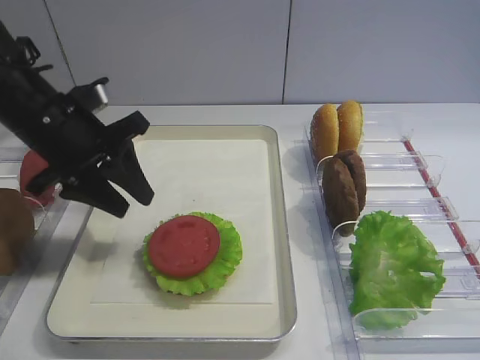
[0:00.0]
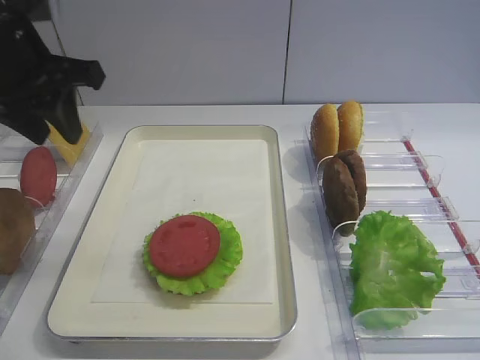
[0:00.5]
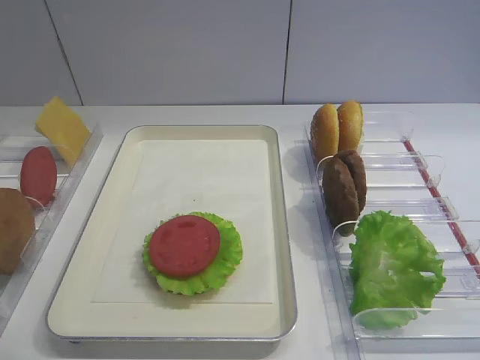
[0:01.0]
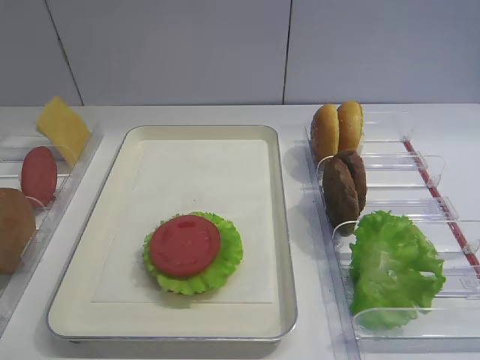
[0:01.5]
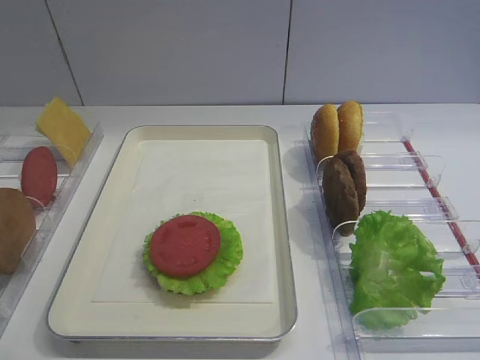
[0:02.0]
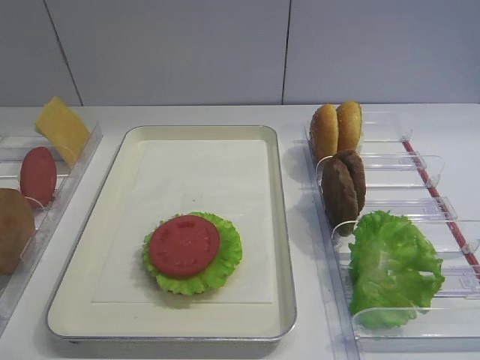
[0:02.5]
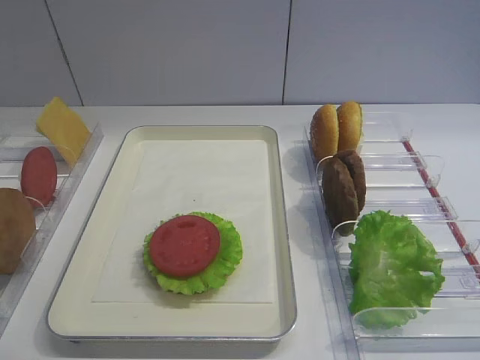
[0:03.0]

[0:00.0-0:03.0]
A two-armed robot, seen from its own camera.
0:00.0 to 0:01.5: The left gripper heads backward and upward, covering some 30 cm.

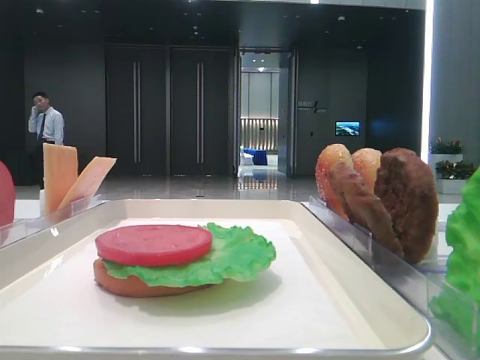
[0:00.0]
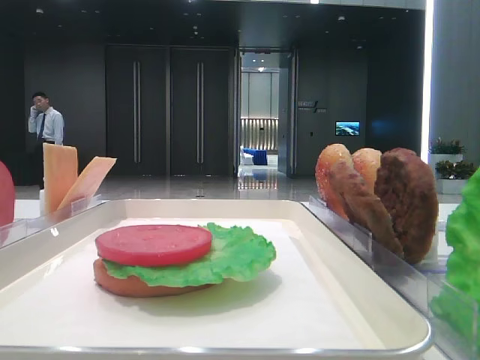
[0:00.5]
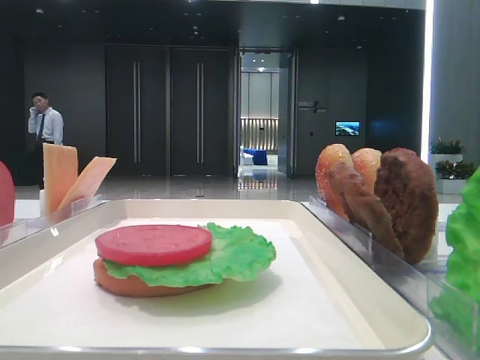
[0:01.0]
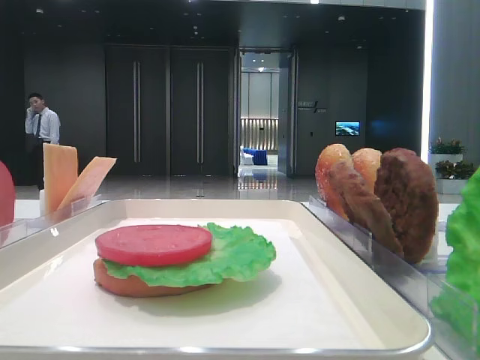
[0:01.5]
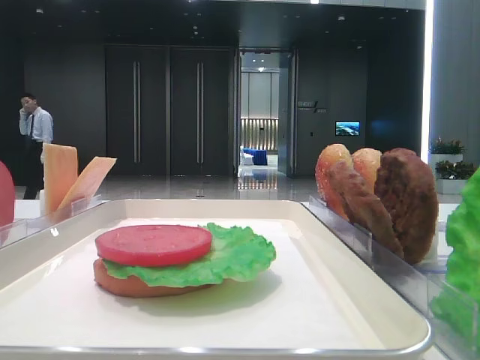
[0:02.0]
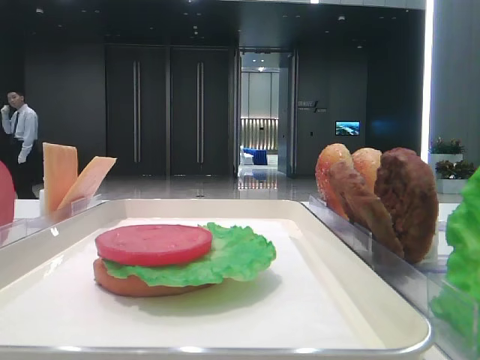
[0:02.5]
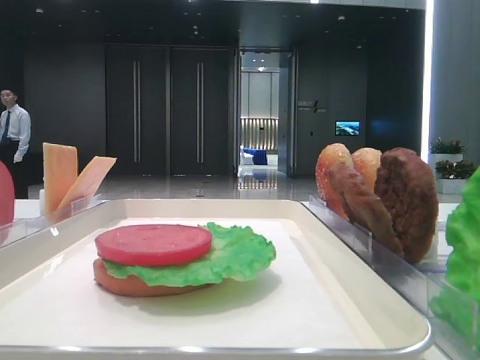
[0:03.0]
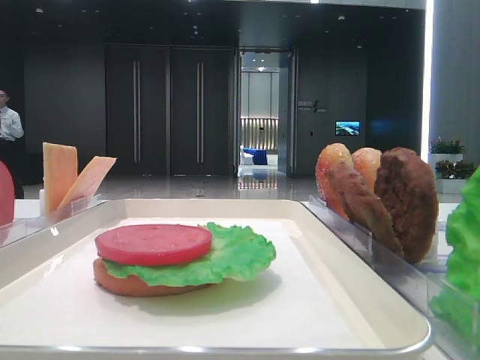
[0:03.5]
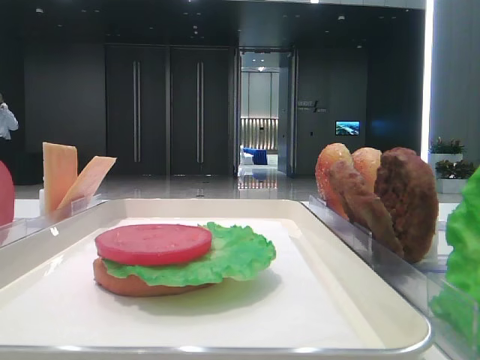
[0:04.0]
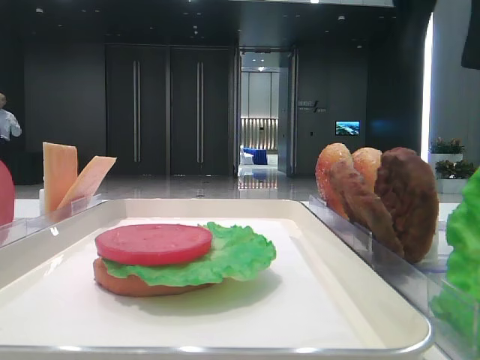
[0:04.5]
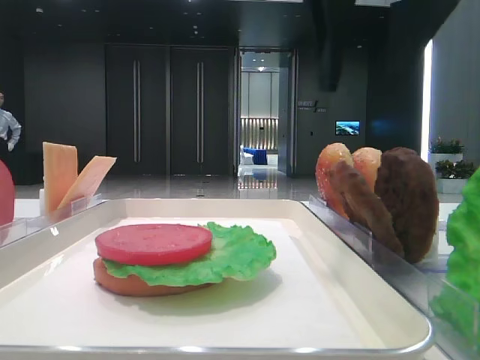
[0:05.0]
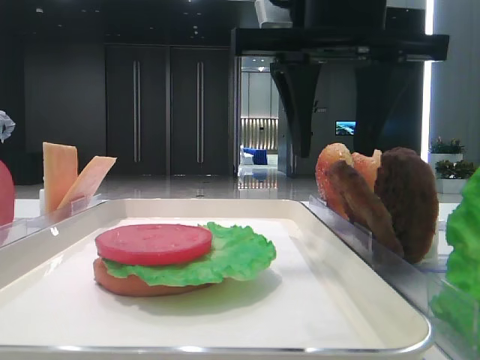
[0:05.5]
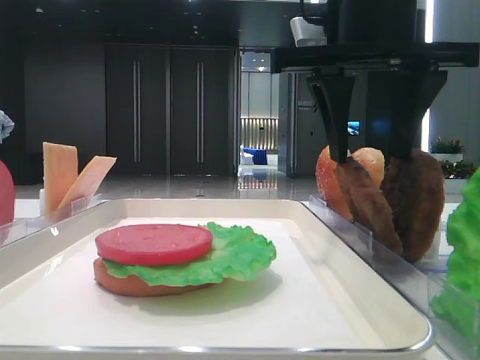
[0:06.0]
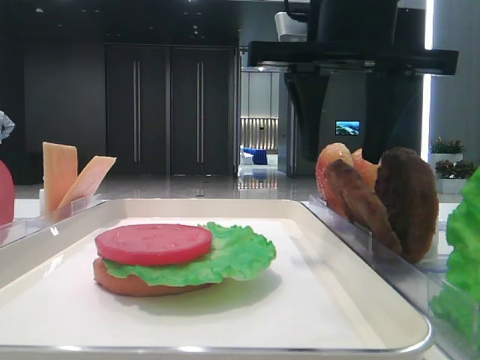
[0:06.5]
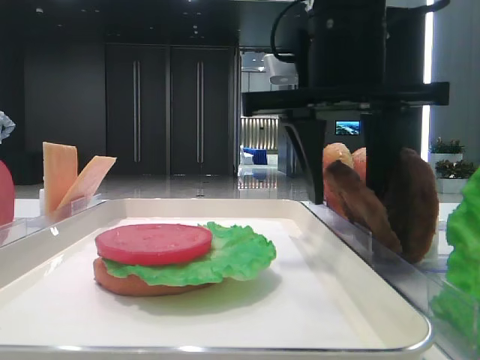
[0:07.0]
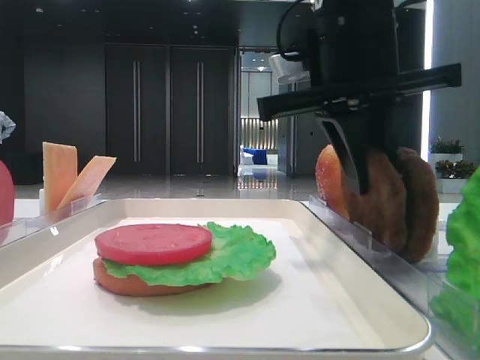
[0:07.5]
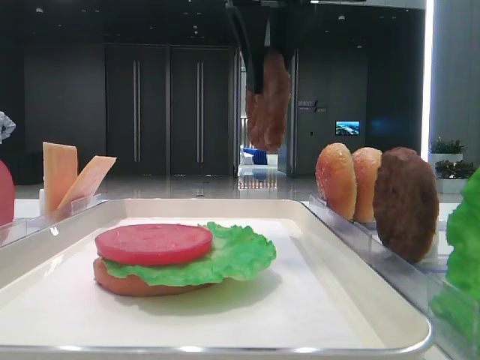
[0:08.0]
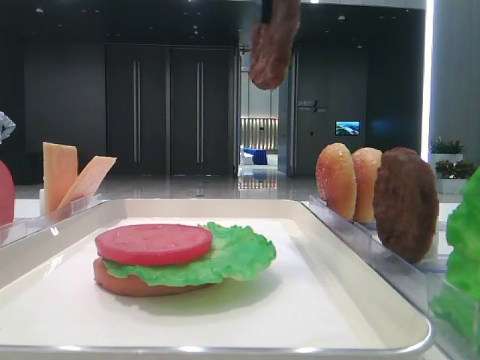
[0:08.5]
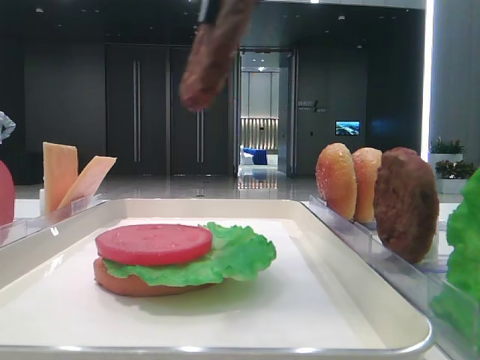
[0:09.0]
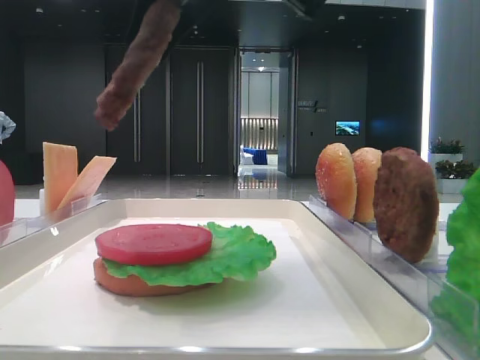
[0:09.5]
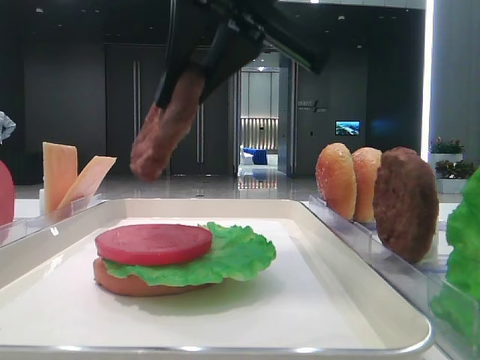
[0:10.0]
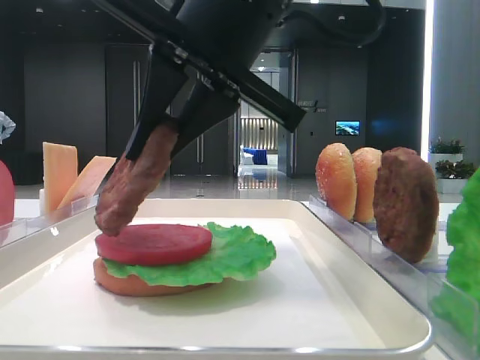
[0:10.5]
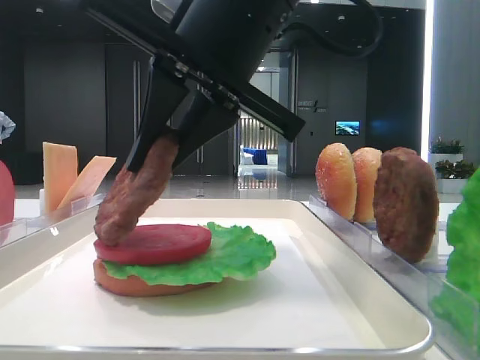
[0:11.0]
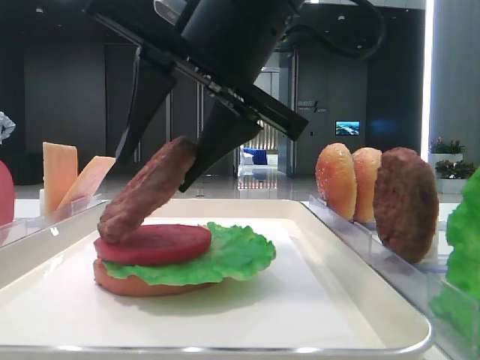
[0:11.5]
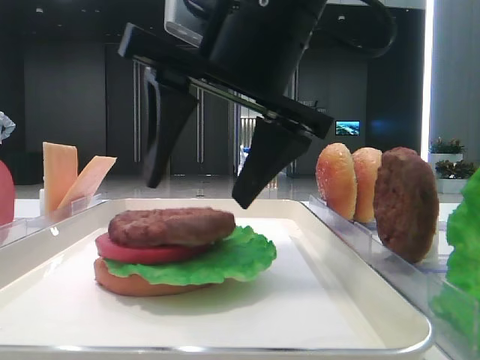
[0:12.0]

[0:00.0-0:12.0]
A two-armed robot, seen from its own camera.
Step, 0:00.0 to 0:07.0: Grab the patty with the right hand.
Step, 0:07.5 to 0:11.5: Place the patty on the tomato slice with the right hand.
0:04.0 to 0:06.0: The right gripper travels to the left by approximately 20 cm.
0:06.0 to 0:08.0: The right gripper heads to the left and upward, covering about 10 cm, and closes its fingers.
0:08.0 to 0:10.0: The right gripper moves backward, roughly 5 cm.
0:10.0 to 0:12.0: The right gripper heads downward, covering roughly 5 cm, and opens.

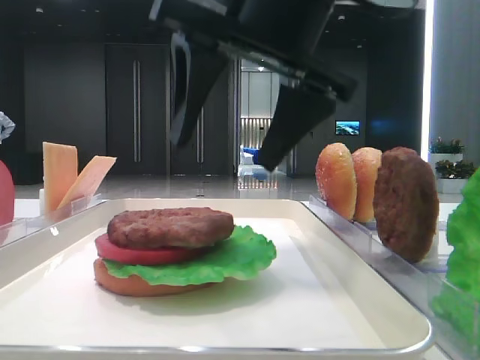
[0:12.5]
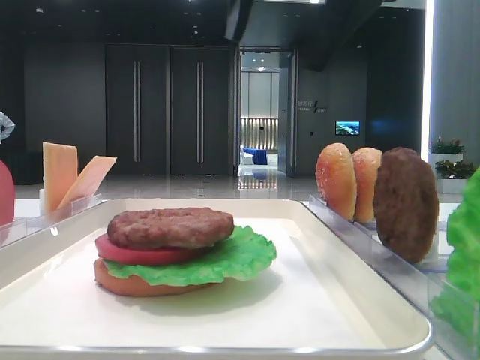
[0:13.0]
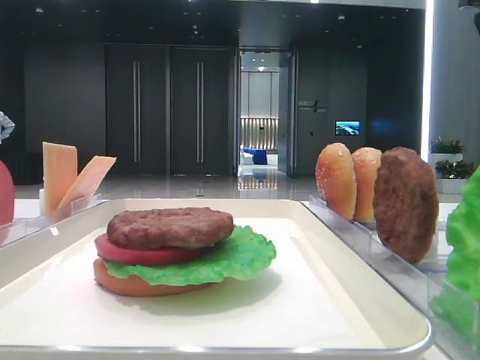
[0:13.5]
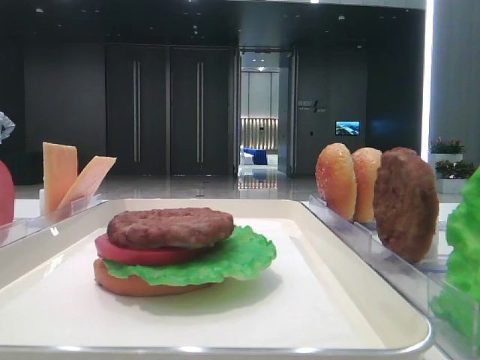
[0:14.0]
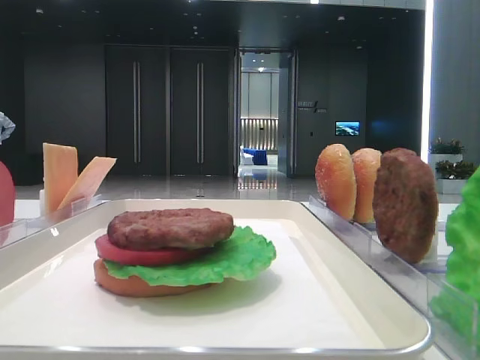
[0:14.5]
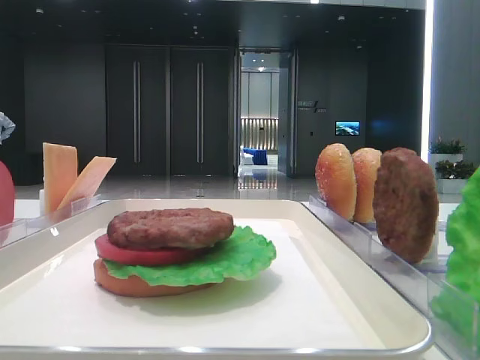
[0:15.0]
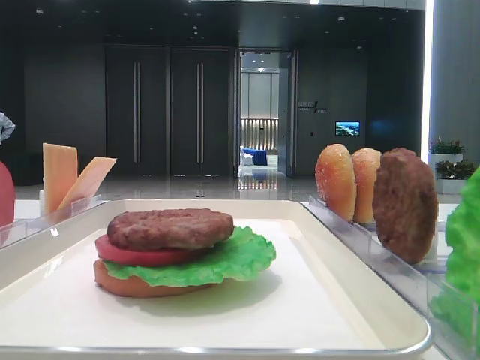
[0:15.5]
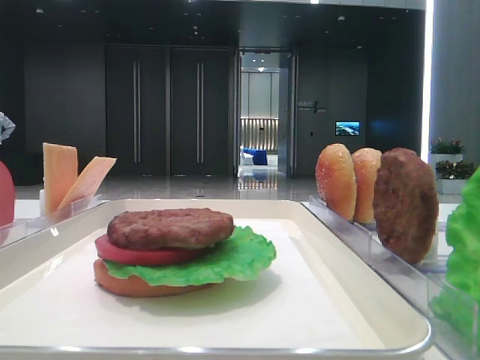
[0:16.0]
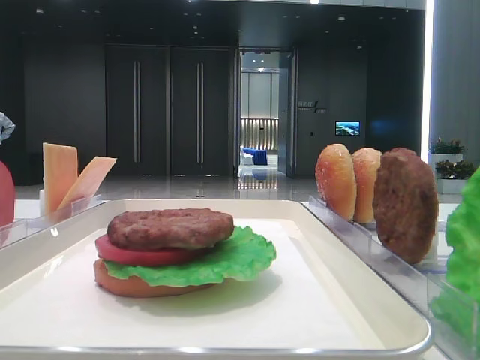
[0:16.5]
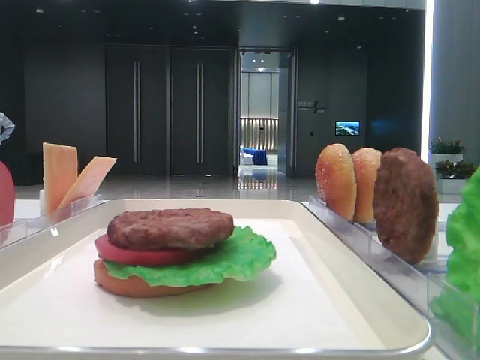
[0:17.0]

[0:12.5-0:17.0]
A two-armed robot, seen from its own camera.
0:12.5 to 0:14.5: The right gripper moves to the right and backward, approximately 30 cm.

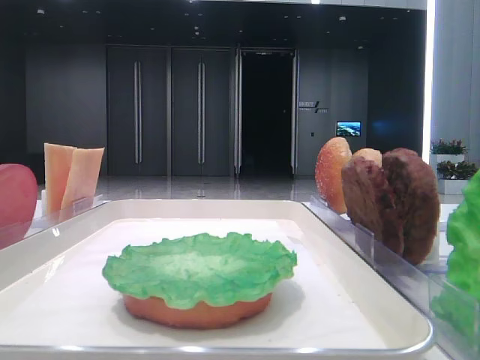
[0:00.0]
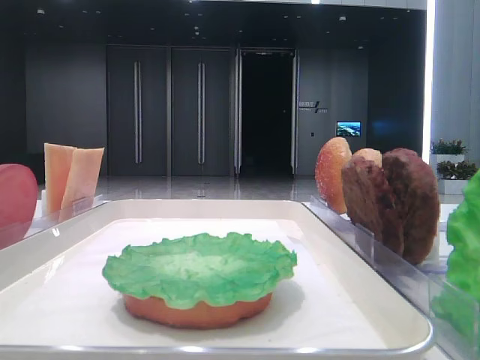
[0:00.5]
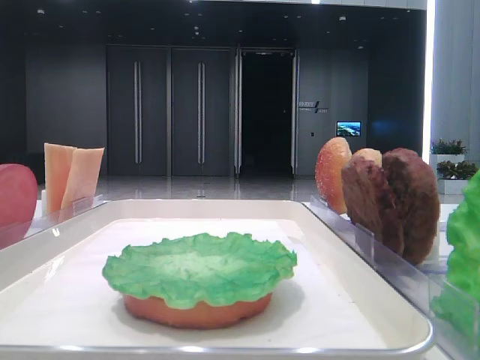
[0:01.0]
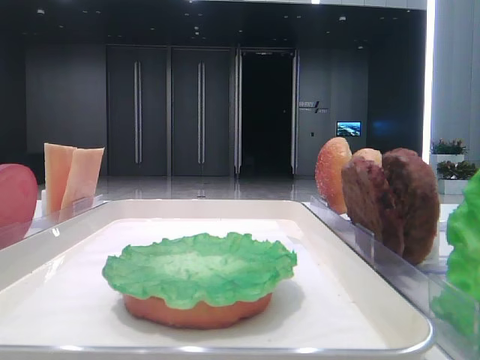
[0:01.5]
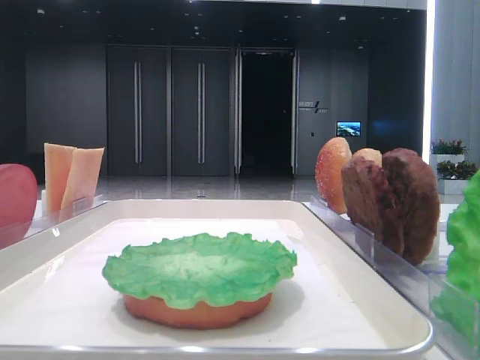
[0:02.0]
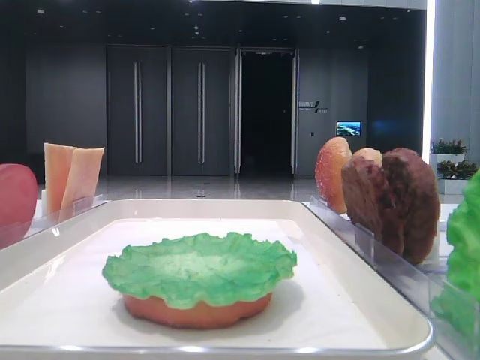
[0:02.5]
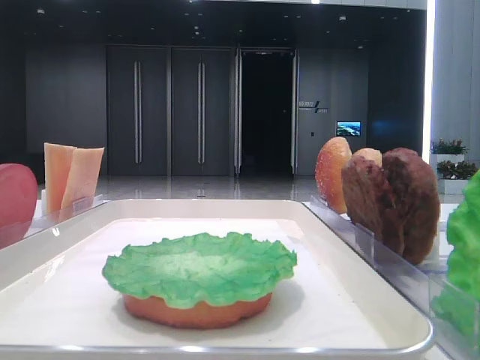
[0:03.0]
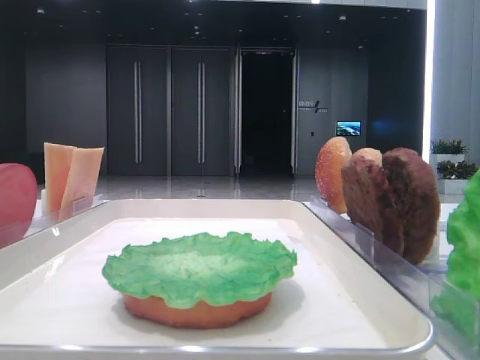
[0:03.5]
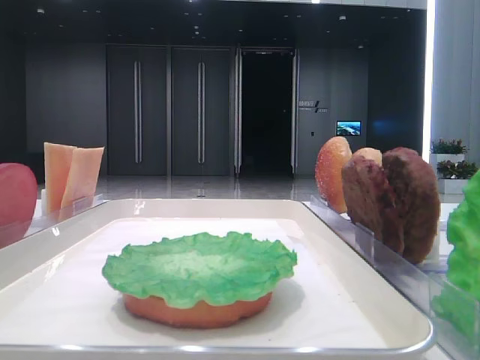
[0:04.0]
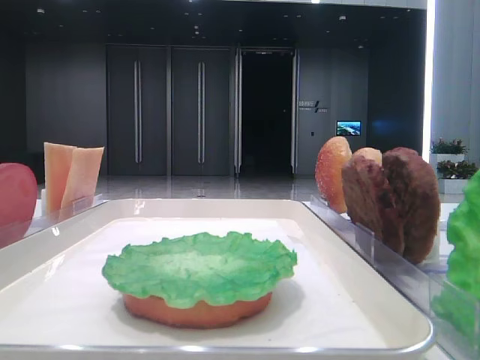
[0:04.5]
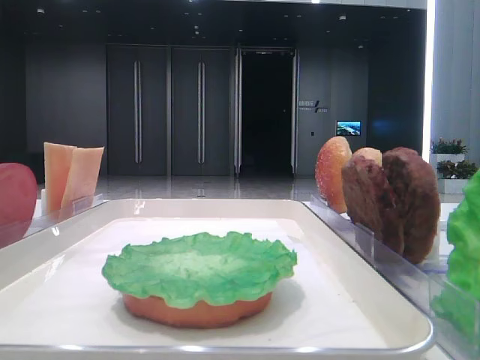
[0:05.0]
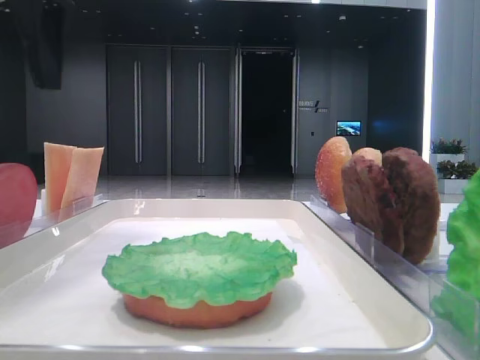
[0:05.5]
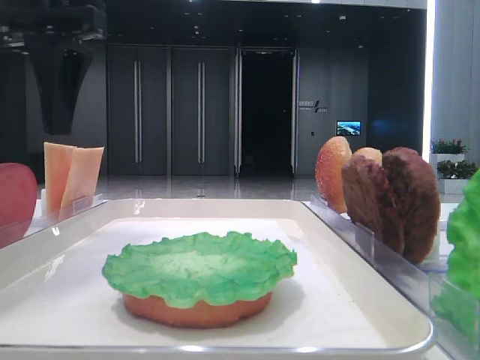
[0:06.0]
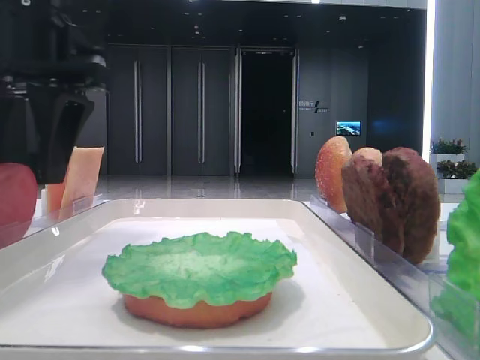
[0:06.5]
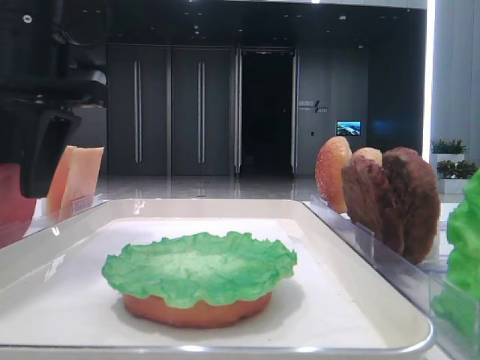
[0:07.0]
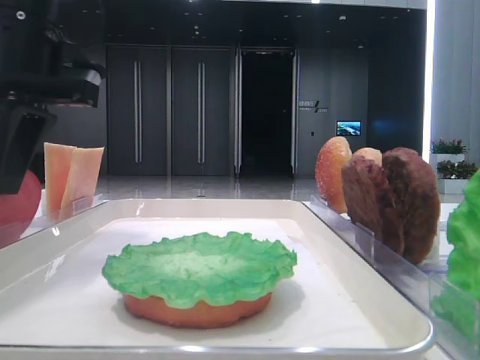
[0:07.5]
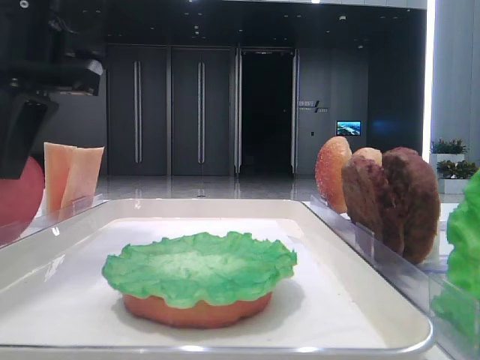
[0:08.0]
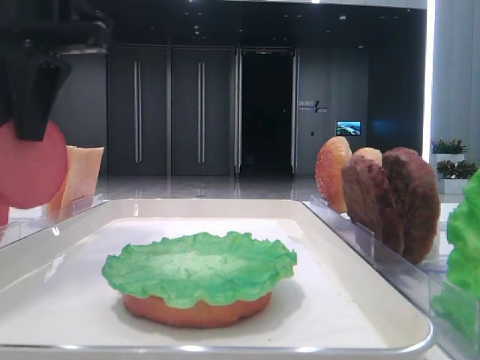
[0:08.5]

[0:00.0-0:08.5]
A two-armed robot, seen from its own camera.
Step, 0:00.0 to 0:07.5: Pick up the tomato slice with the left hand.
0:04.0 to 0:06.5: The left gripper heads to the right and downward, covering roughly 15 cm.
0:06.5 to 0:08.5: The left gripper closes.
